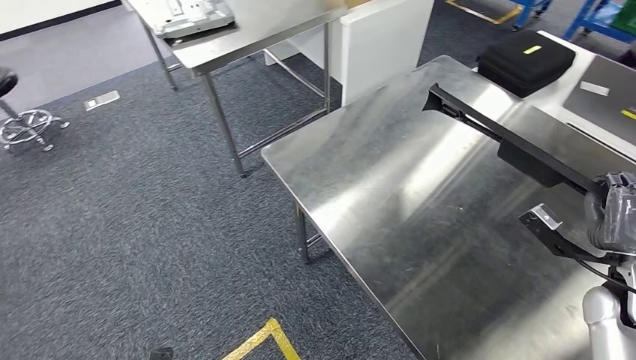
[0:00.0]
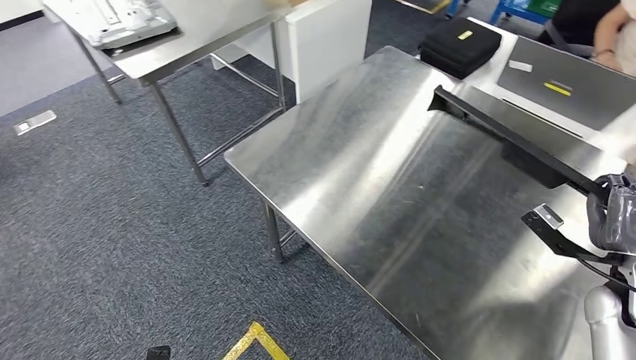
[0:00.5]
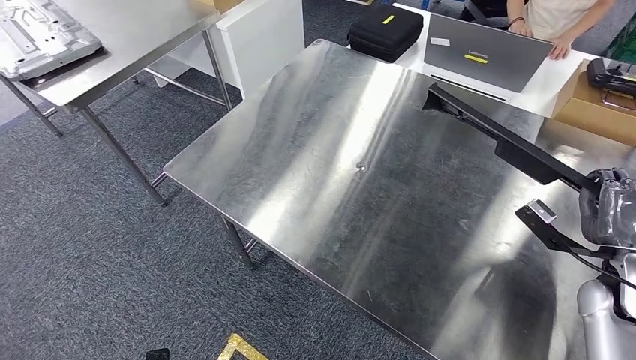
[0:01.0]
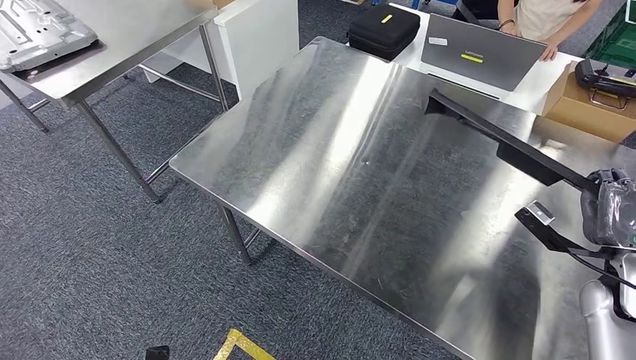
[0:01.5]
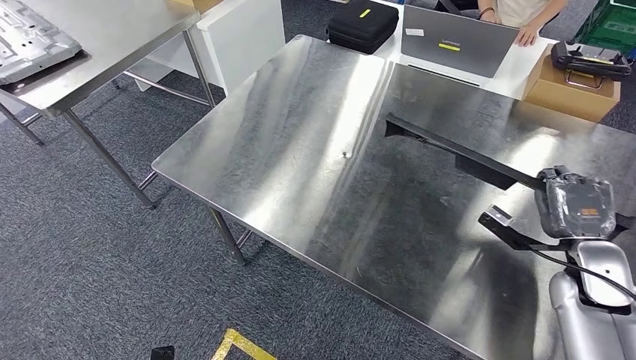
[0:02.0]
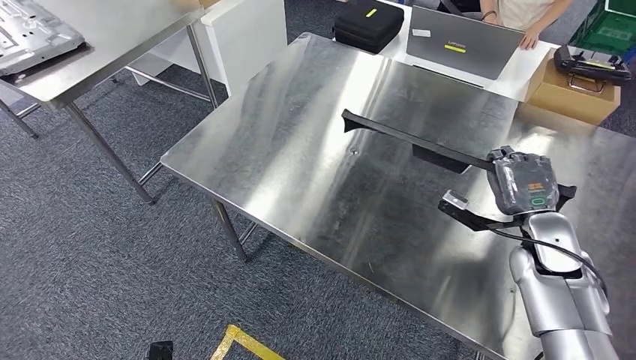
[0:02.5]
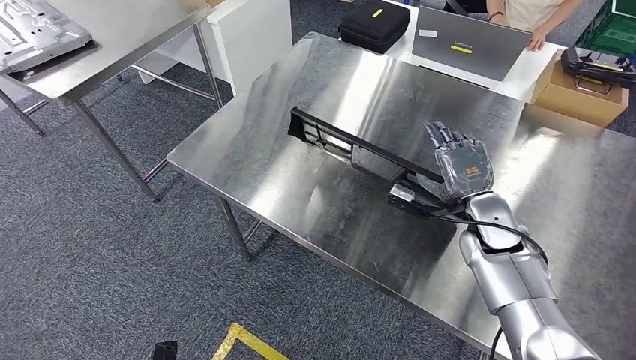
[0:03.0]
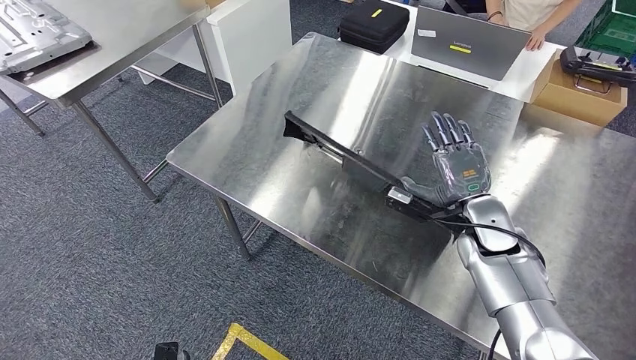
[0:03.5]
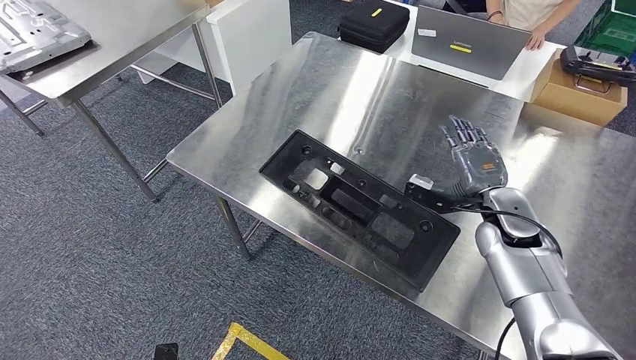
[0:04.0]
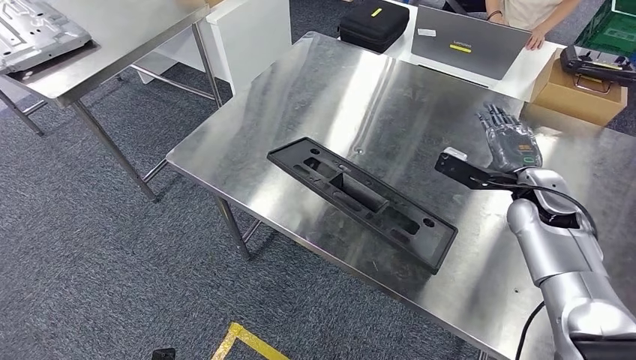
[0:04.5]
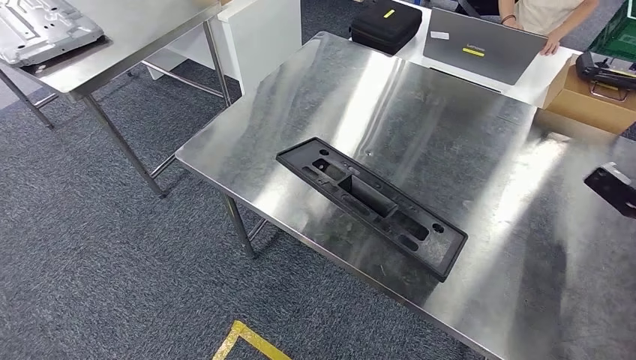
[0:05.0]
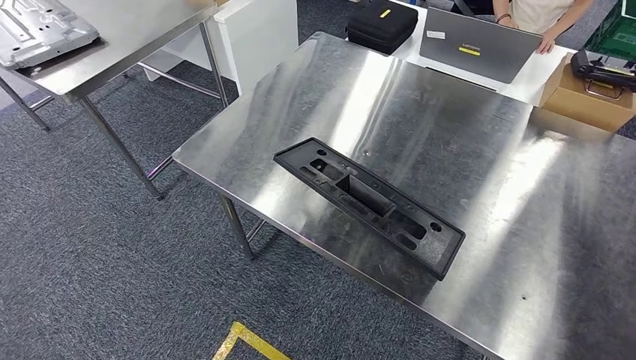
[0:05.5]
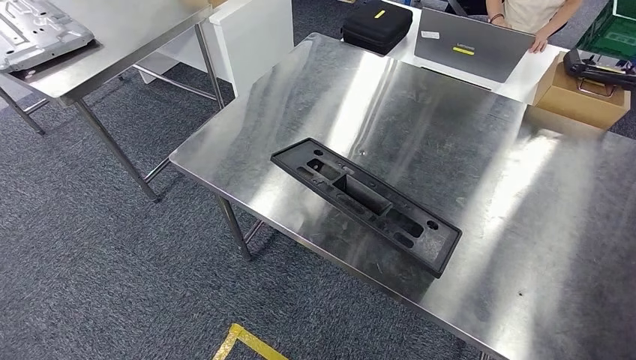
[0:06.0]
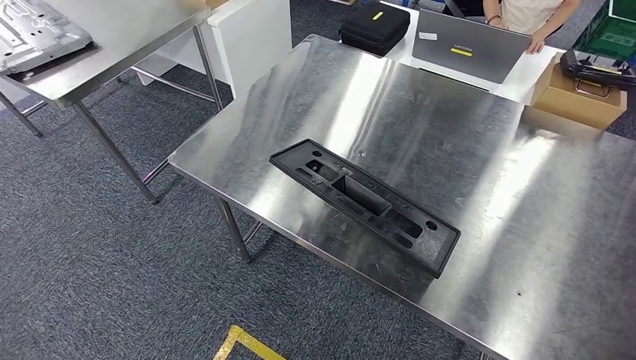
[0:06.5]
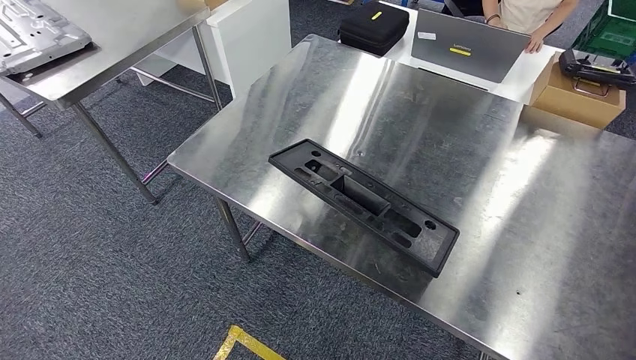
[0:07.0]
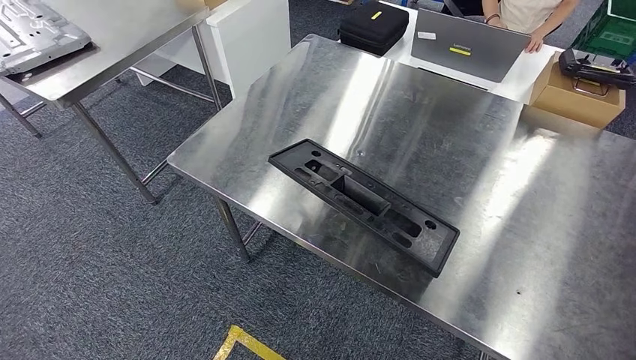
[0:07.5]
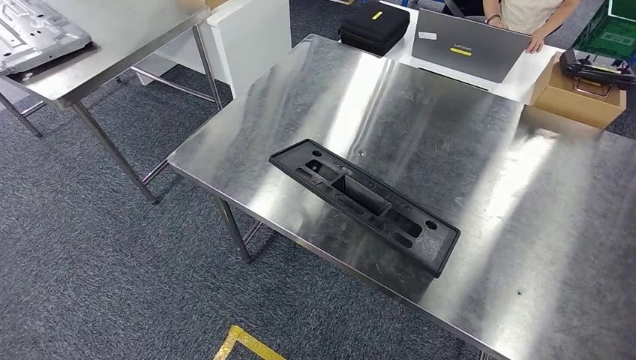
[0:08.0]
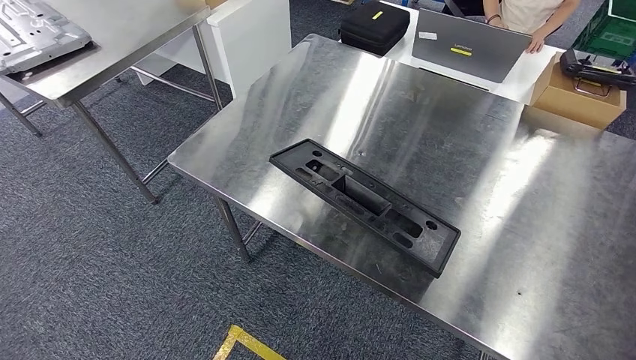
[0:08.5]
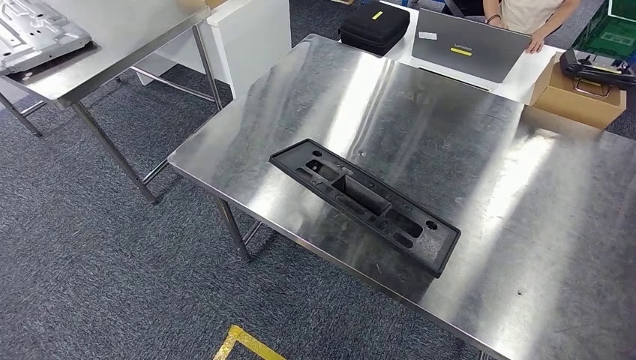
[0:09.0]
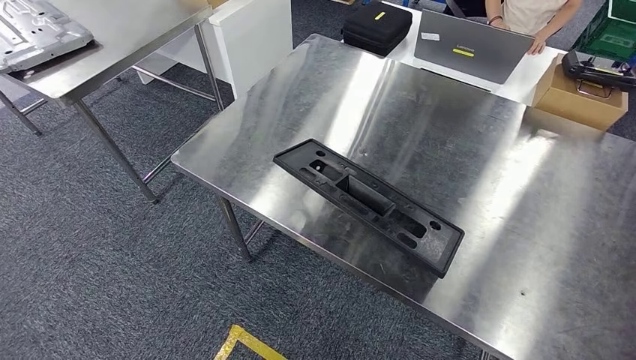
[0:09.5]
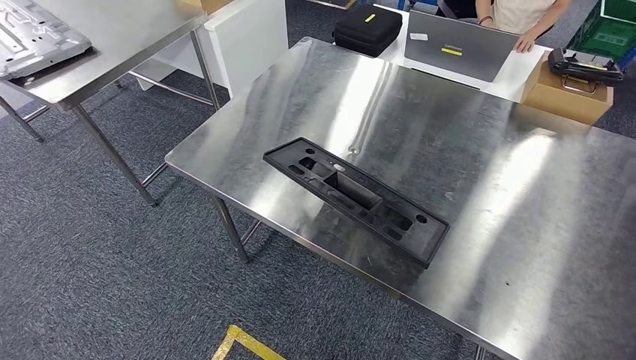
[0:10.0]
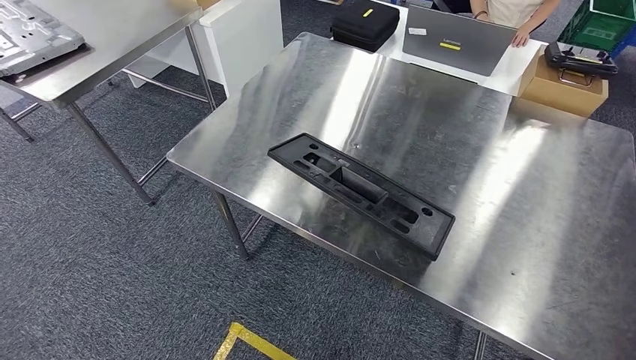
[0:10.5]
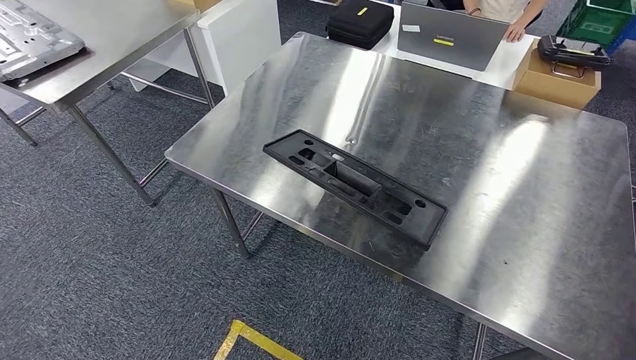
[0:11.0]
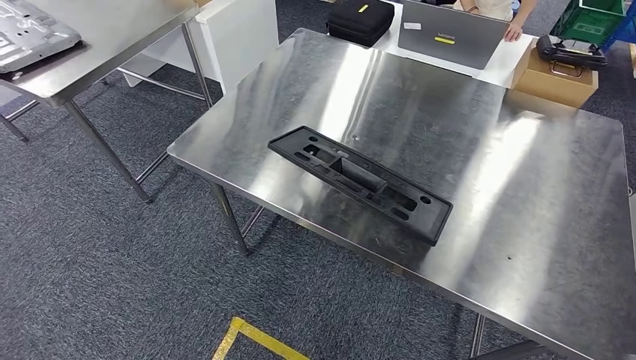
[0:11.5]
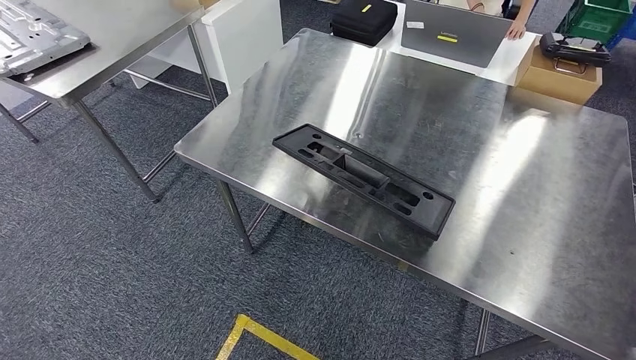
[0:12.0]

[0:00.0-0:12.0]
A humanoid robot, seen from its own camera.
Step, 0:00.0 to 0:05.0: Insert the large material into the corresponding slot on the workbench.
0:04.0 to 0:06.0: The right hand travels backward and to the right by approximately 50 cm.
0:06.0 to 0:08.0: The right hand moves downward and to the left, some 40 cm.
0:08.0 to 0:10.0: The right hand is displaced to the left by roughly 15 cm. The left hand heads to the left, covering approximately 5 cm.

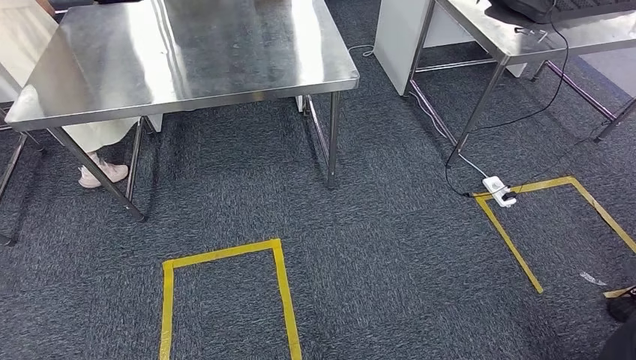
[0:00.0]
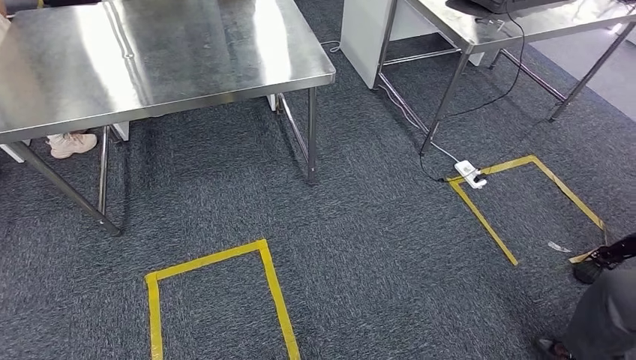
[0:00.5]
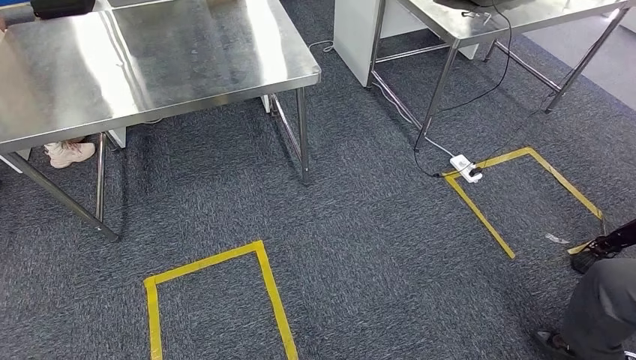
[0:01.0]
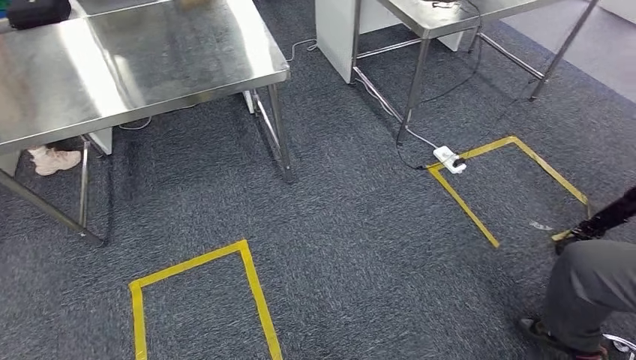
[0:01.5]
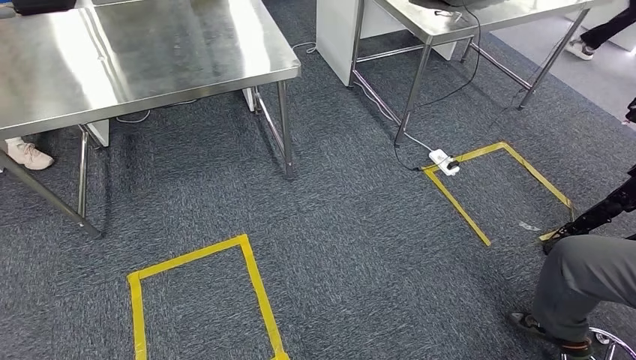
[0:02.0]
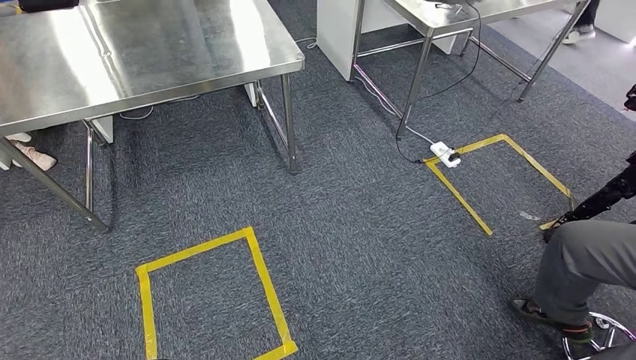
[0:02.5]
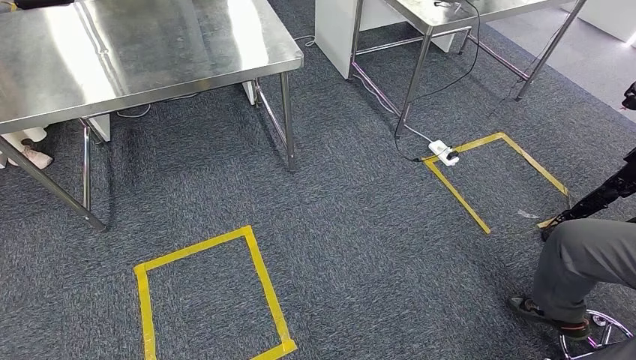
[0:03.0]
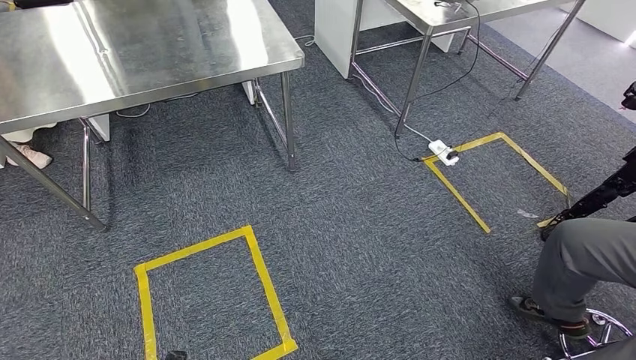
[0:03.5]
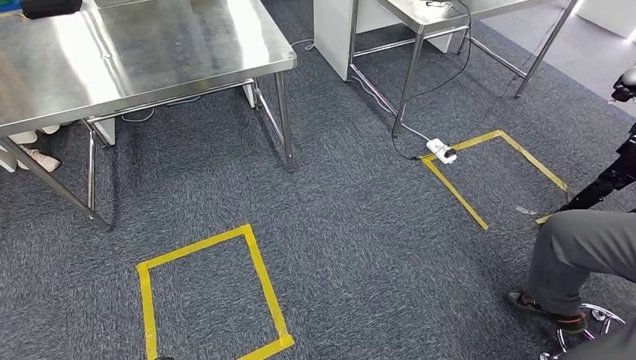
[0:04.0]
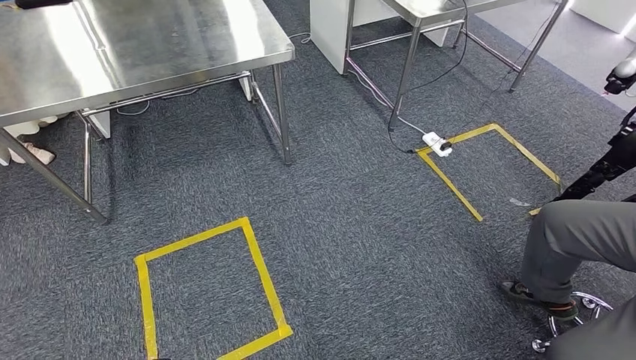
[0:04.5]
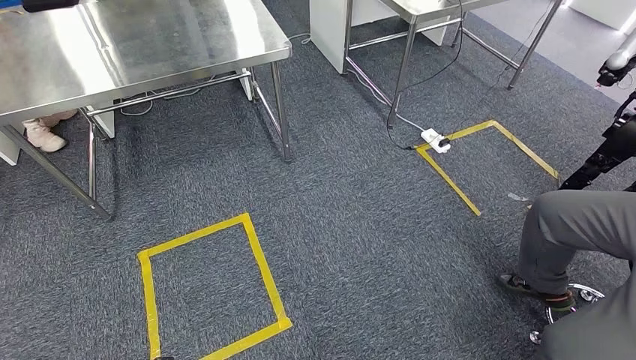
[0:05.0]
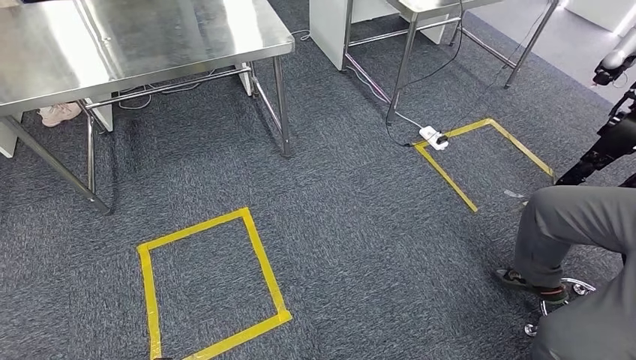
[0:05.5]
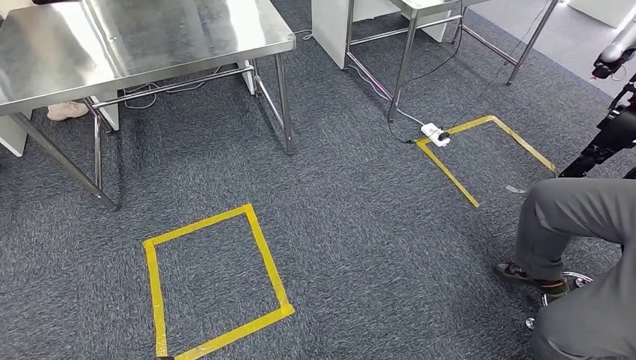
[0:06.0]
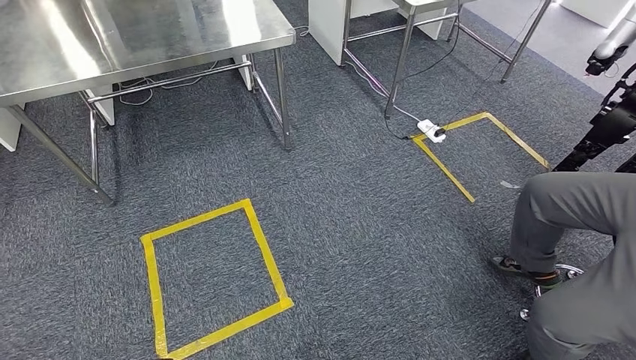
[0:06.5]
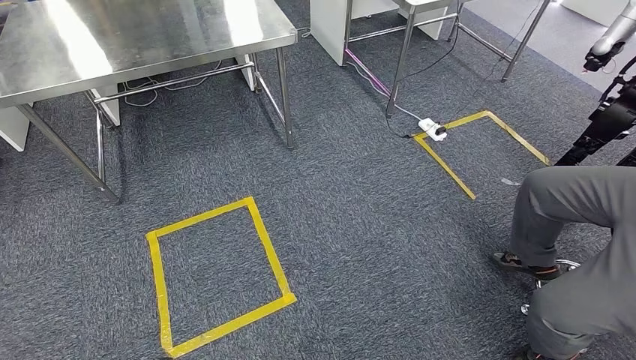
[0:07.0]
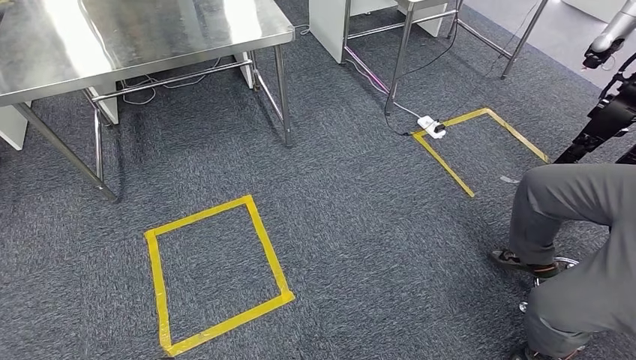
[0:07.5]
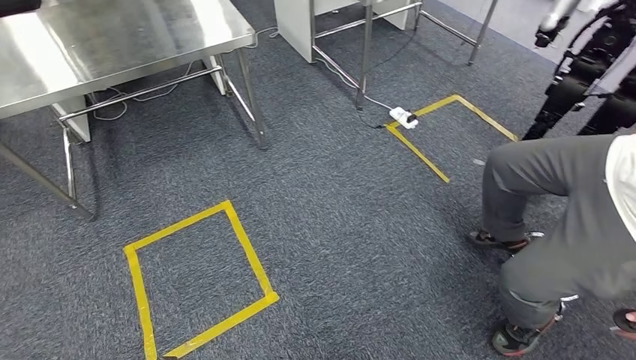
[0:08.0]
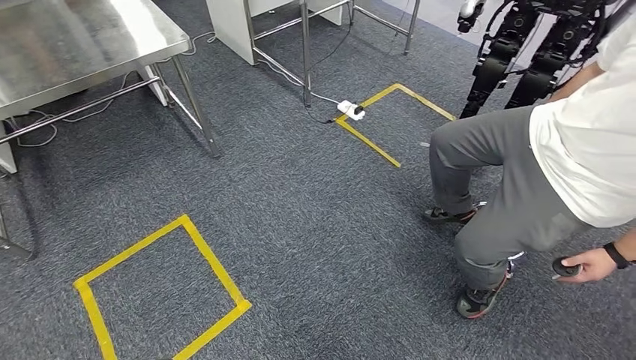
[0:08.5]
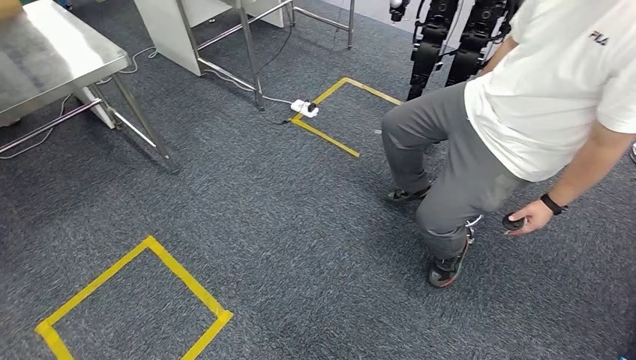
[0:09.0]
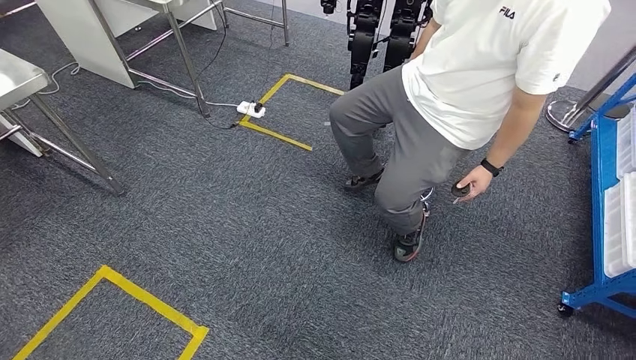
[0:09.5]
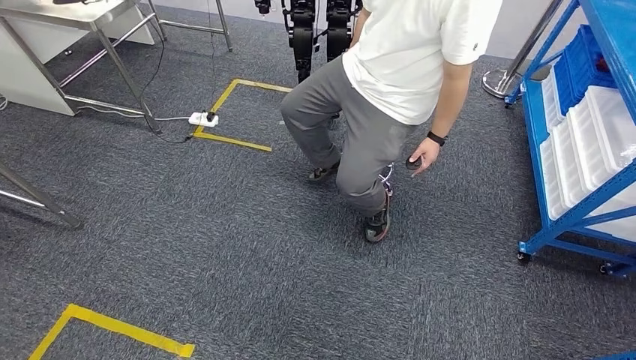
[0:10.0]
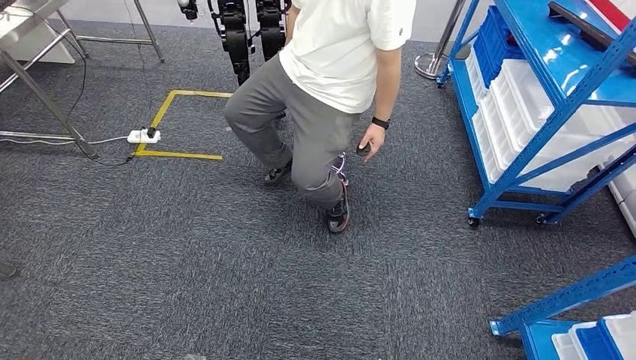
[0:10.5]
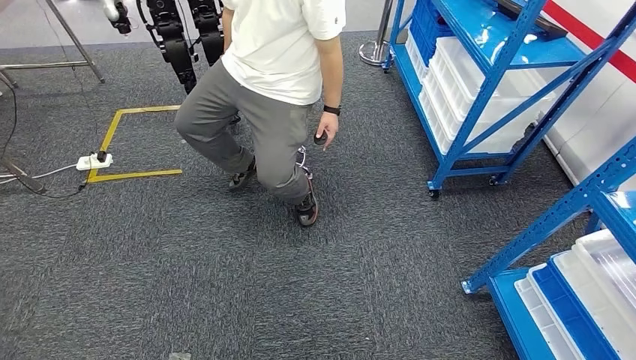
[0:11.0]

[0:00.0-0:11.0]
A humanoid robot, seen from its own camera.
0:02.0 to 0:03.5: The hands stay close to where they were, moving slightly.
